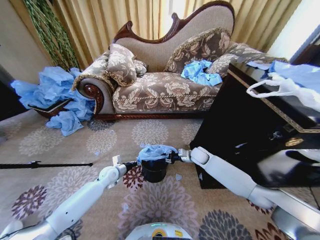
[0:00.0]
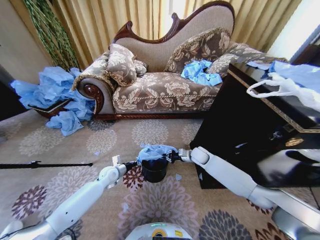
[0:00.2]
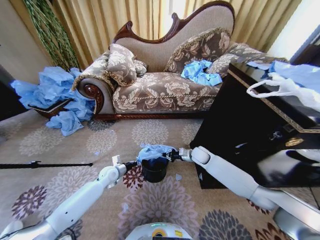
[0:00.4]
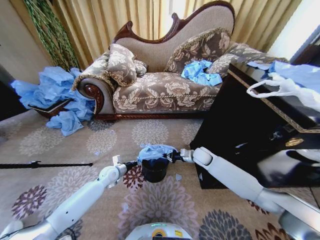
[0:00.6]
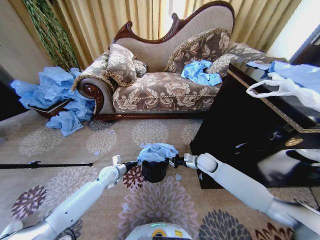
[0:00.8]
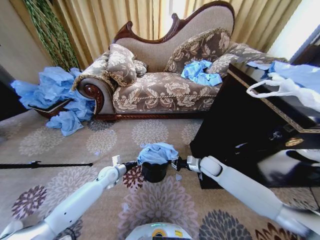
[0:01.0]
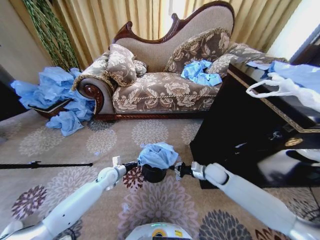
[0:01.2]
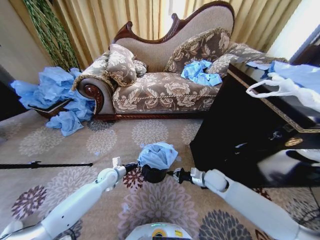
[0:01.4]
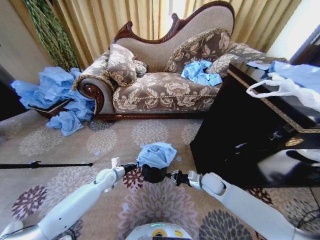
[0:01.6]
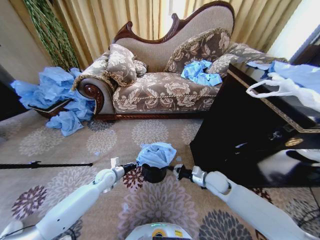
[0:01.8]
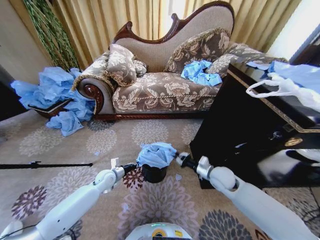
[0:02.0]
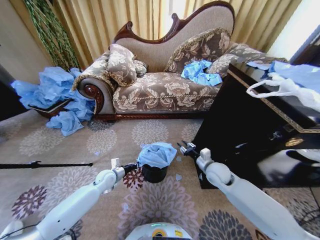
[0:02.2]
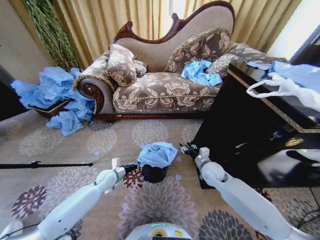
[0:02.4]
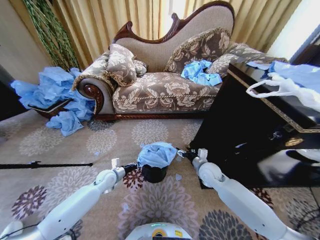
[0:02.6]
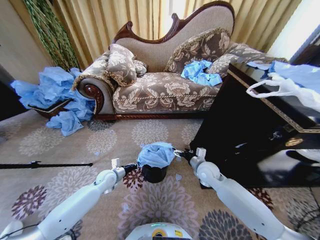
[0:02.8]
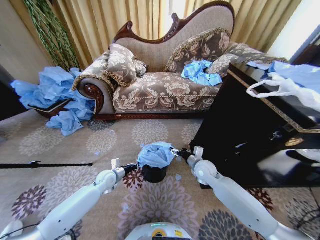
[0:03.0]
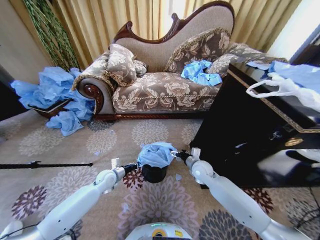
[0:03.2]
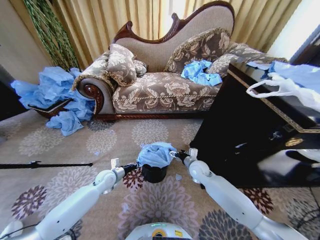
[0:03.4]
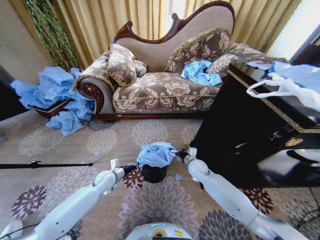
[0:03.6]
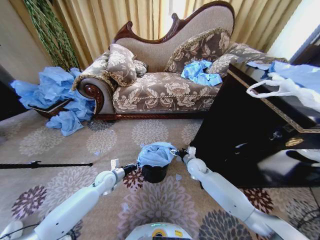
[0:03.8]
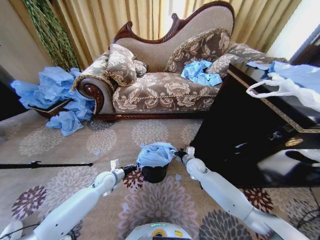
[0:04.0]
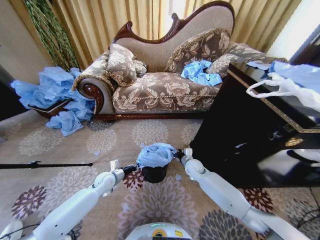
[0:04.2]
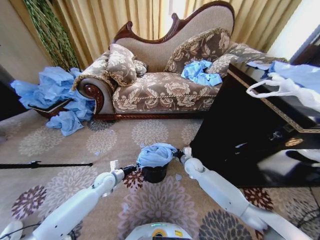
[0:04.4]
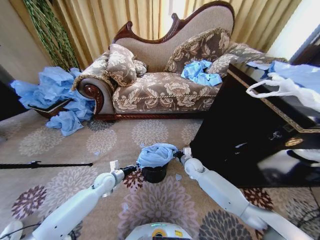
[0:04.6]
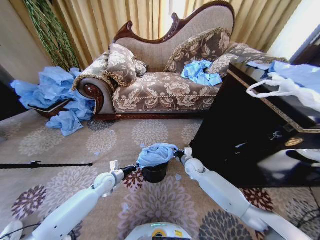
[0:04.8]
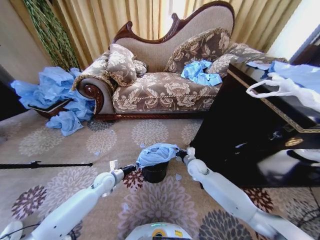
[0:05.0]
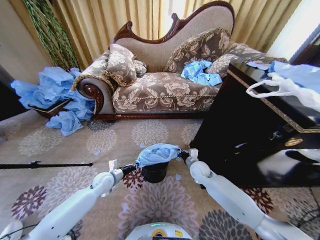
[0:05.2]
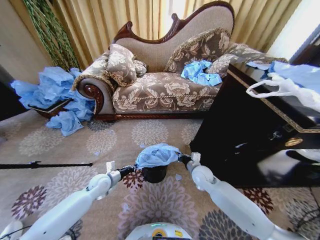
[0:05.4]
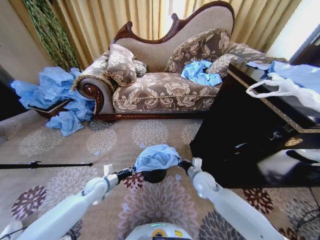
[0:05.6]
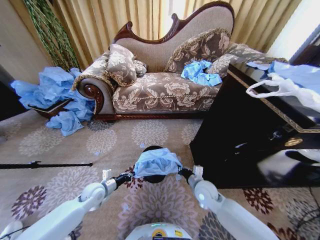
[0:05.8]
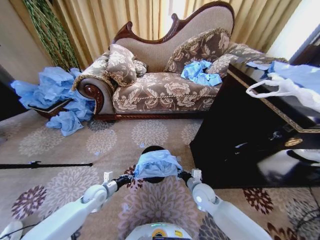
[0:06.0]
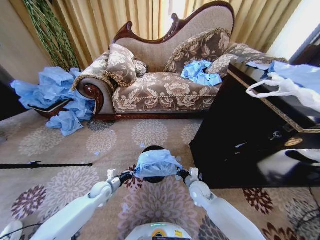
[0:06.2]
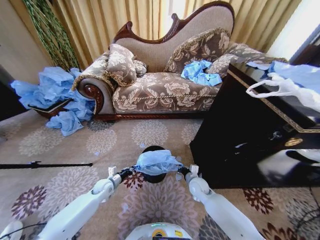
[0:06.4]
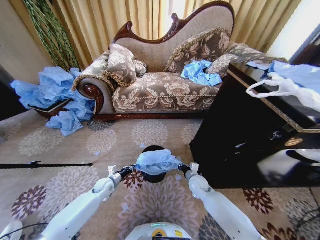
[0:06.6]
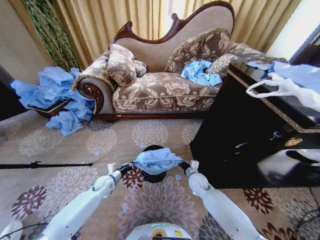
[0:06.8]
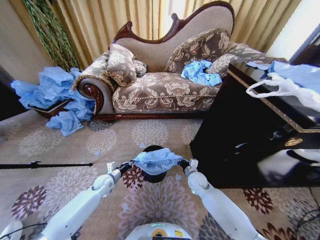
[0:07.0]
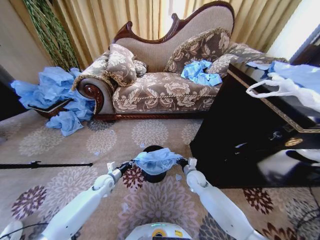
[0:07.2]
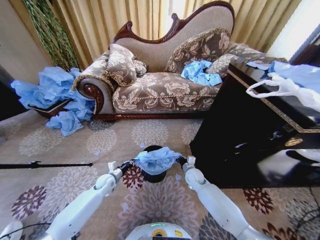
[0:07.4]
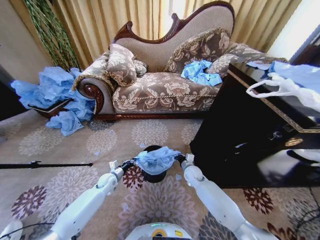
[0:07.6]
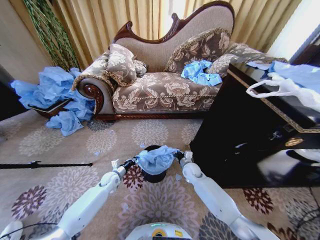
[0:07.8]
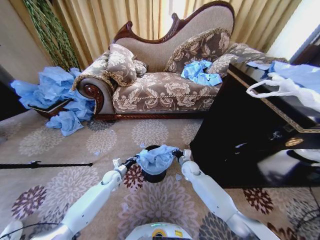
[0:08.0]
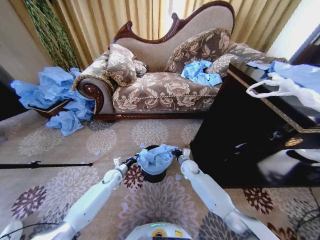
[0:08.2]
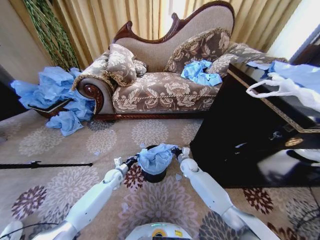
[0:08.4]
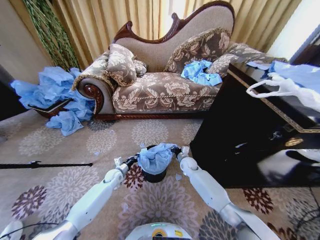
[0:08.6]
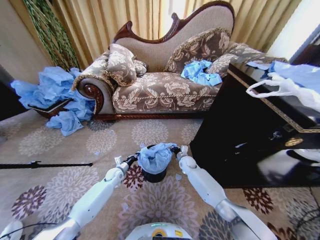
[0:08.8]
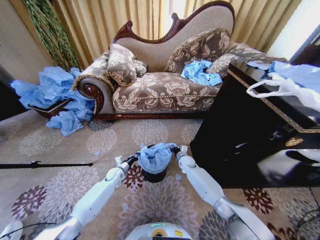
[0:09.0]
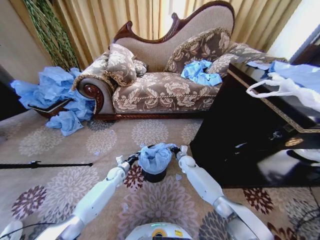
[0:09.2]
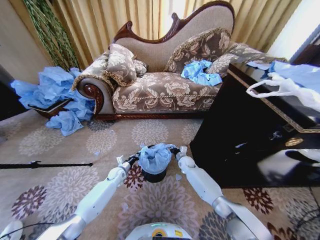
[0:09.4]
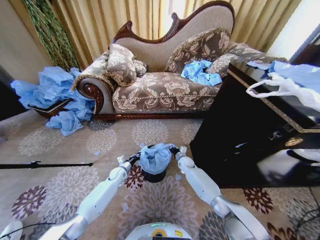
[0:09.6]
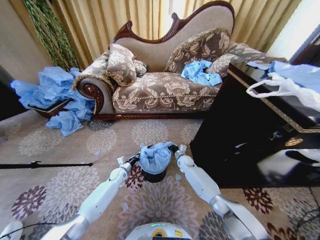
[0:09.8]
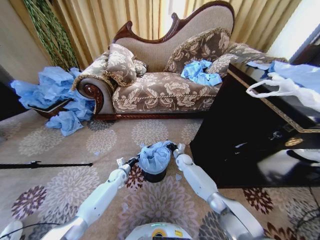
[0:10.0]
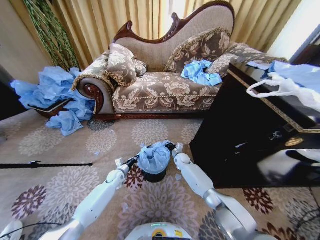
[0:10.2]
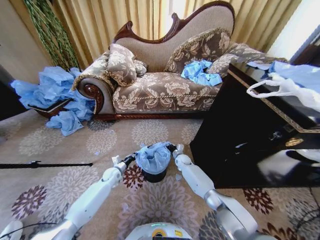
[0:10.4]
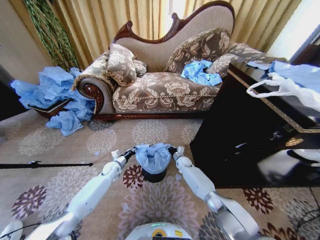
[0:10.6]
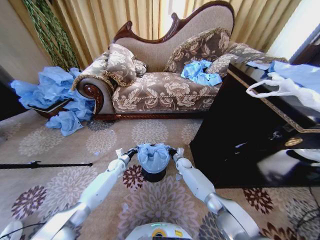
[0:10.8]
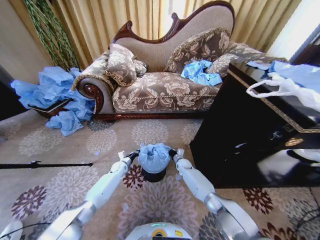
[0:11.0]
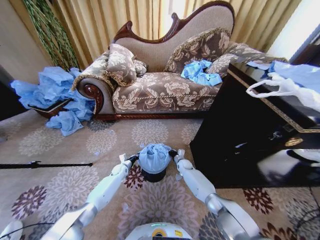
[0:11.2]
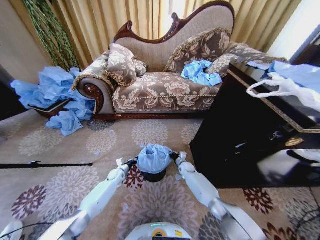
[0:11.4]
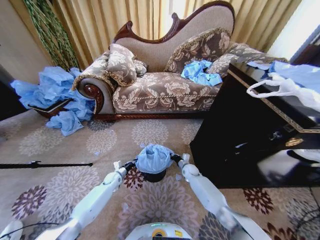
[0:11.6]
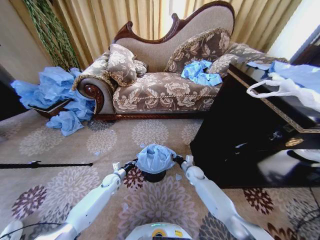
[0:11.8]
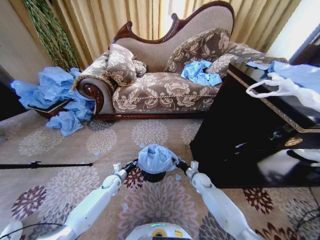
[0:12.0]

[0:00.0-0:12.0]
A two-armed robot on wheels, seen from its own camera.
Task of the whole recording: Place a garbage bag over the trash bin.
0:00.0 to 0:01.6: The right gripper is displaced backward by about 15 cm.
0:01.6 to 0:03.0: The right gripper heads upward, covering approximately 5 cm, and opens.
0:03.0 to 0:04.4: The right gripper moves downward and forward, about 10 cm, and closes.
0:04.4 to 0:06.0: The left gripper travels backward by approximately 5 cm, while the right gripper travels backward by approximately 15 cm, and closes its fingers.
0:06.0 to 0:07.6: Both grippers travel together forward, about 10 cm.
0:07.6 to 0:09.0: The right gripper goes about 10 cm forward. The left gripper moves about 5 cm.
0:09.0 to 0:10.4: The grippers make only small movements.
0:10.4 to 0:12.0: The right gripper heads backward and to the right, covering some 15 cm; the left gripper goes forward and returns, about 5 cm each way.

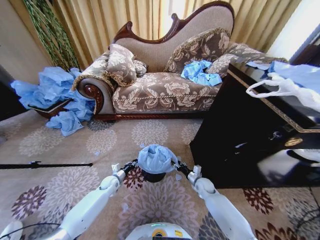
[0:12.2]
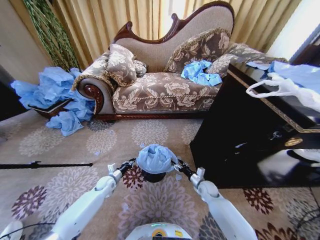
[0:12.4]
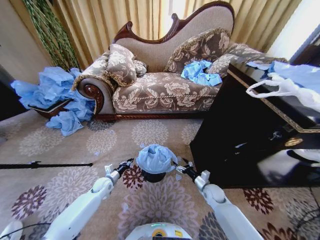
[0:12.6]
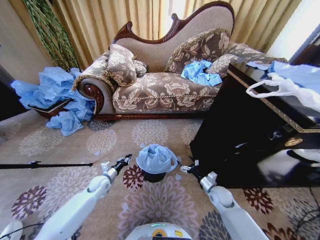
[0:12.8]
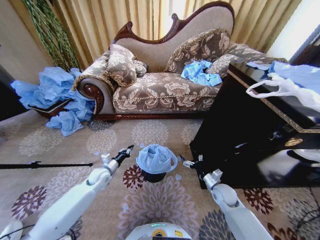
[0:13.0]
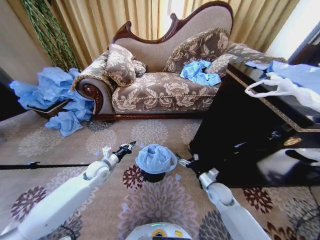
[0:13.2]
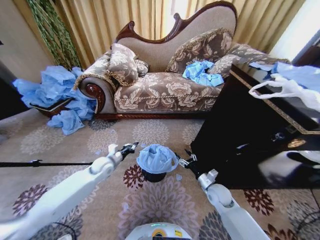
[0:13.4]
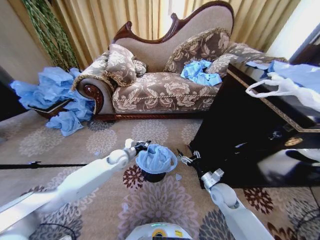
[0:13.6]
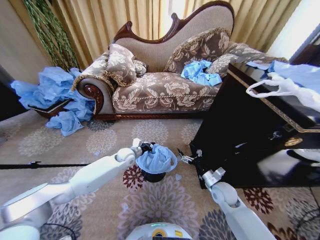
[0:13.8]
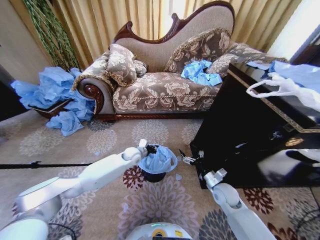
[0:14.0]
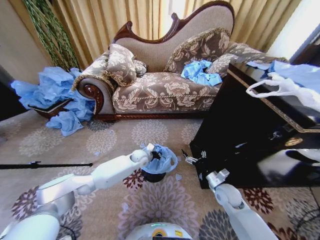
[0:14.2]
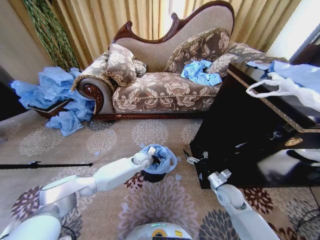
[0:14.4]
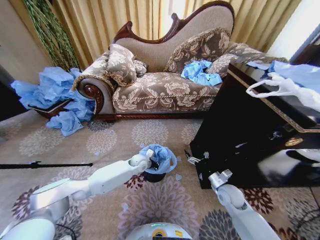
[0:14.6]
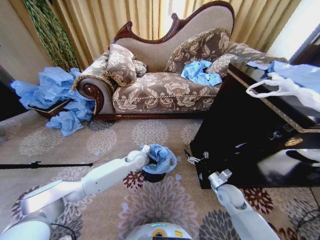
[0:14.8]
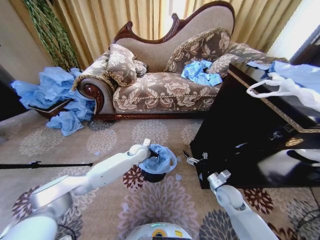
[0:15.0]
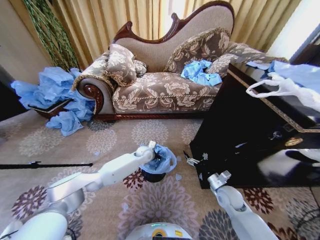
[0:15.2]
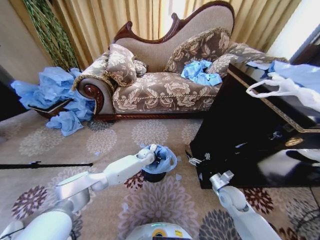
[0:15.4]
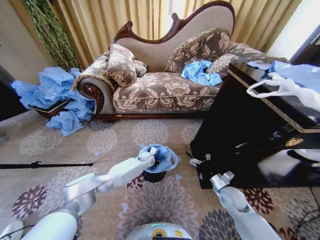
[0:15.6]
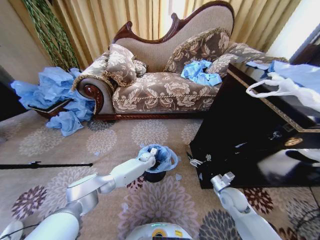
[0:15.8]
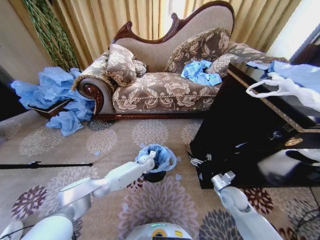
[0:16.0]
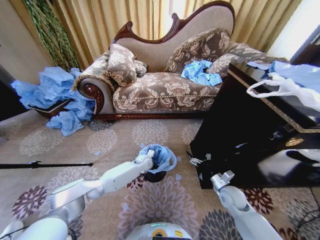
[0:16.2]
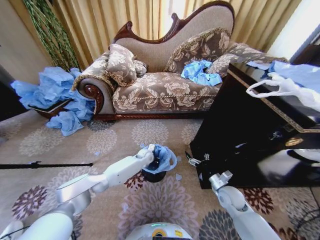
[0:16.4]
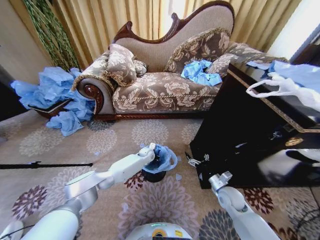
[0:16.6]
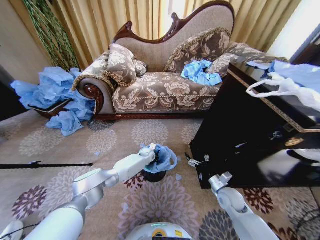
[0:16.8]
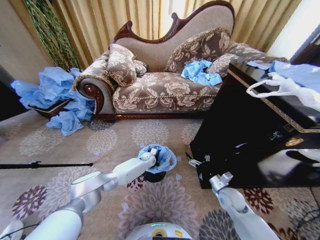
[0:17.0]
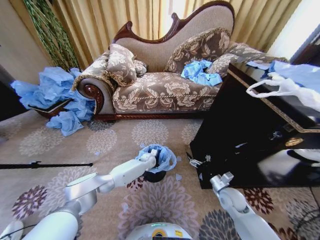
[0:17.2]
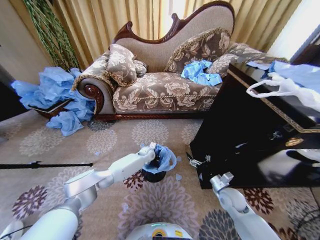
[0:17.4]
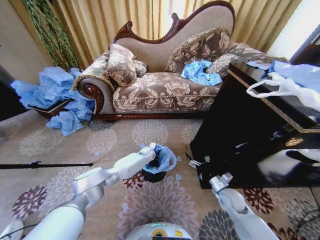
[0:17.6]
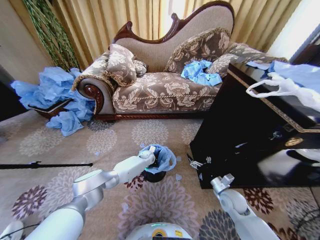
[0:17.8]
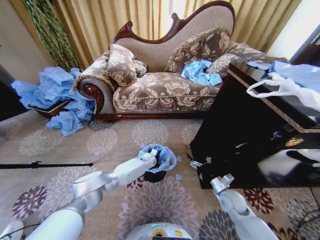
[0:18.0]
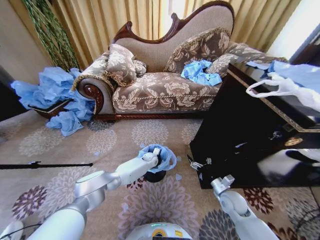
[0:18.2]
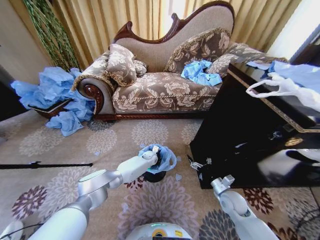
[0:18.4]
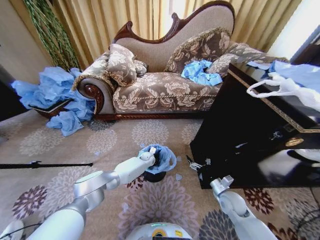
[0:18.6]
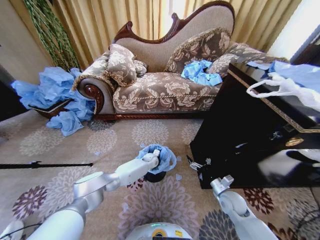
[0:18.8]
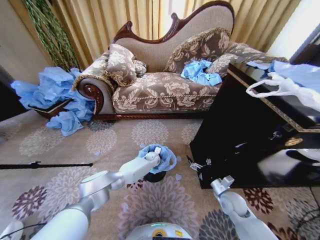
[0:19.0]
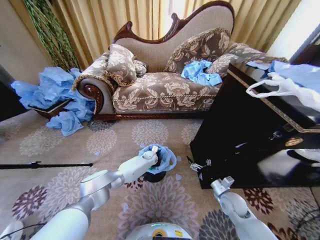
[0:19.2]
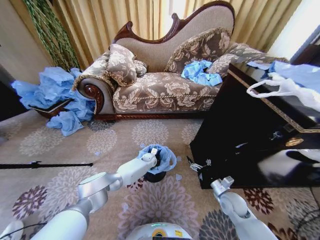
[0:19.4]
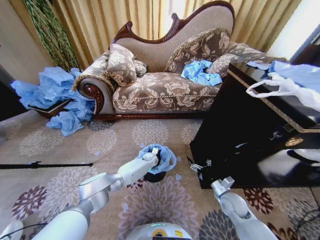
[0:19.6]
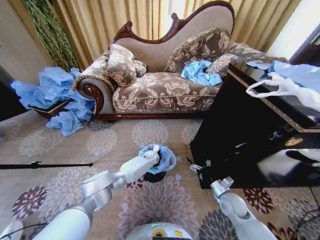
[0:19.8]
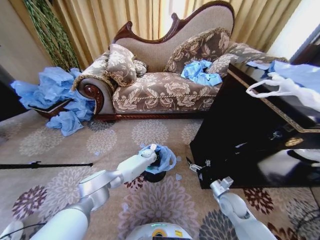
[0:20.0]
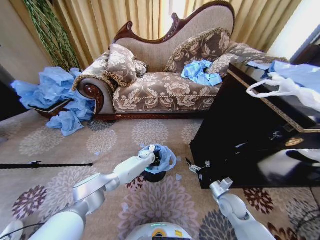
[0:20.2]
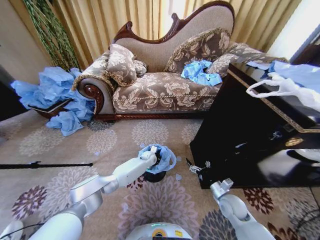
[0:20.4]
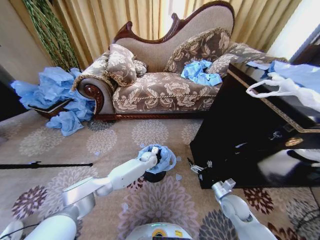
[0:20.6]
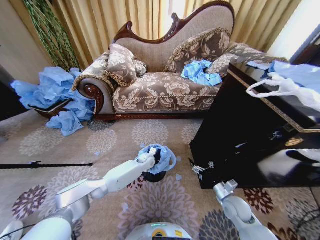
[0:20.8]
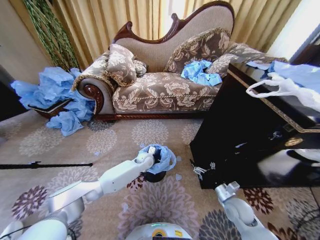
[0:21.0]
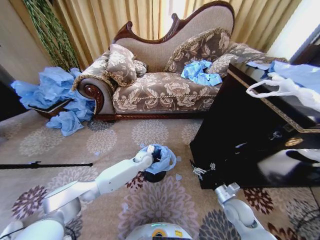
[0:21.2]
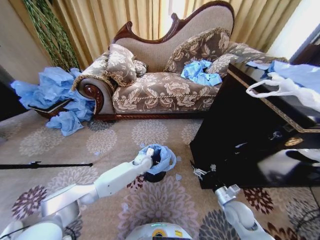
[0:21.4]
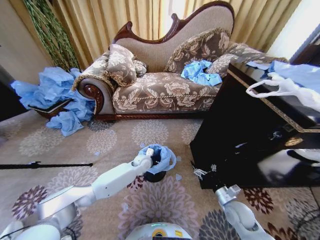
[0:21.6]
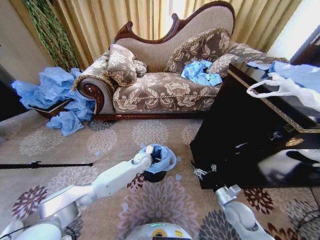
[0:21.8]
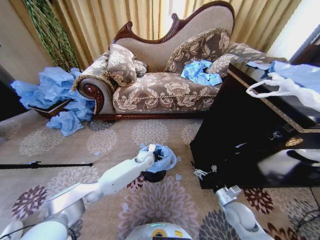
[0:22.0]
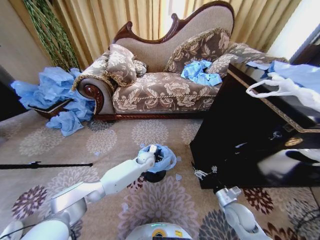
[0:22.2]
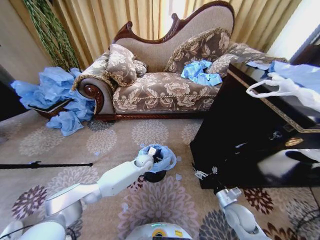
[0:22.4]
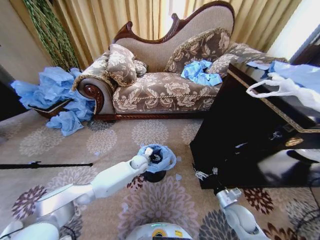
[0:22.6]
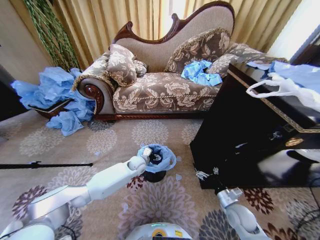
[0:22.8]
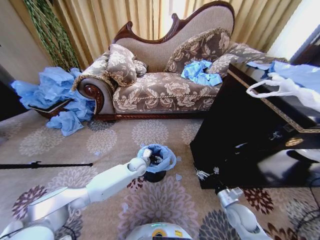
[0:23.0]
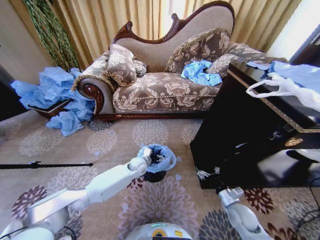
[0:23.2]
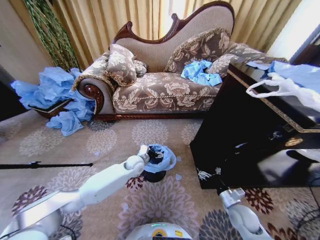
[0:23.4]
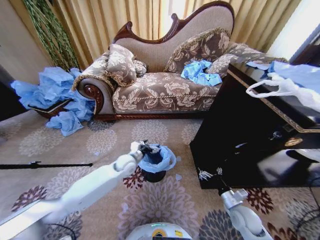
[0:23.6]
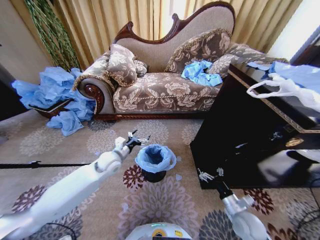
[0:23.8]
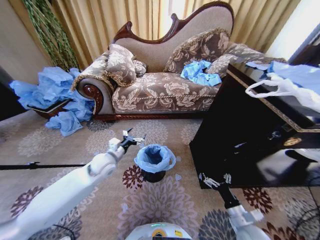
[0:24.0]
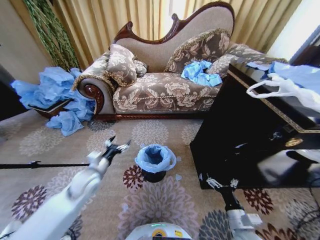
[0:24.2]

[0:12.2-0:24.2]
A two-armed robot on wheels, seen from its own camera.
Task of the whole recording: Place a garbage bag over the trash bin.
0:12.2 to 0:13.8: The left gripper travels upward, to the right and forward by roughly 20 cm, while the right gripper is displaced upward and backward by roughly 15 cm, and opens.
0:13.8 to 0:15.2: The left gripper travels to the right by about 10 cm.
0:15.2 to 0:16.6: The left gripper changes place by some 5 cm.
0:16.6 to 0:19.8: The grippers stay close to where they were, moving slightly.
0:19.8 to 0:21.2: The left gripper moves upward and backward, roughly 10 cm, and opens up.
0:22.6 to 0:24.2: The right gripper moves backward, about 10 cm, while the left gripper heads to the left, upward and backward, covering approximately 25 cm.
